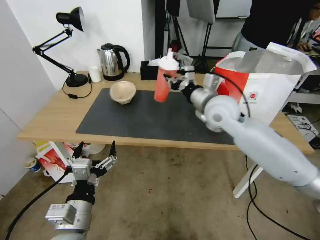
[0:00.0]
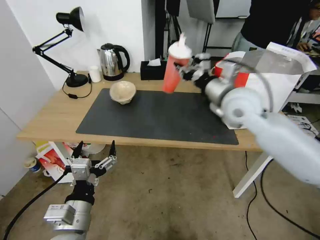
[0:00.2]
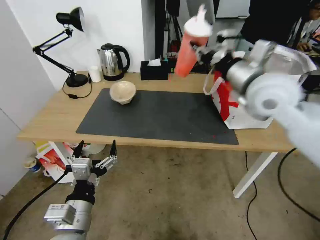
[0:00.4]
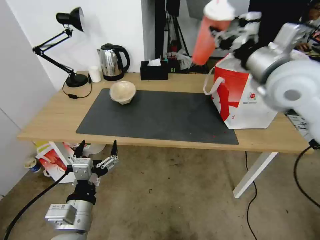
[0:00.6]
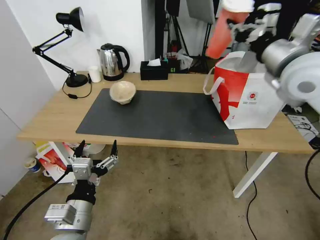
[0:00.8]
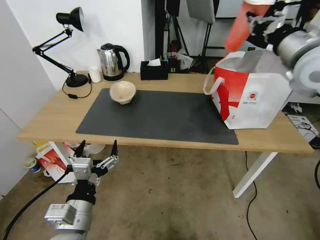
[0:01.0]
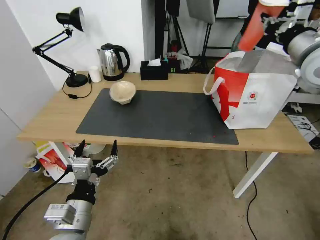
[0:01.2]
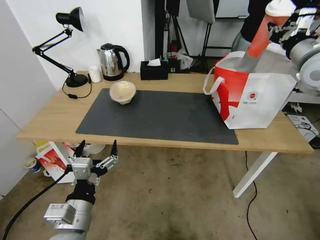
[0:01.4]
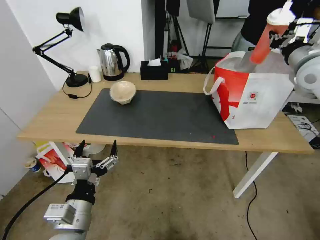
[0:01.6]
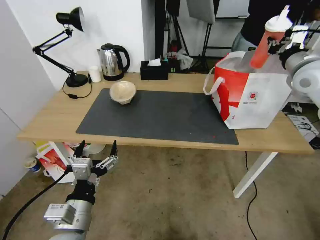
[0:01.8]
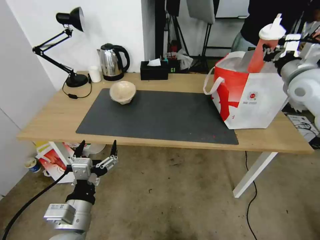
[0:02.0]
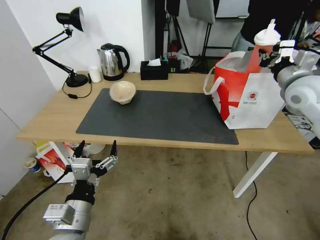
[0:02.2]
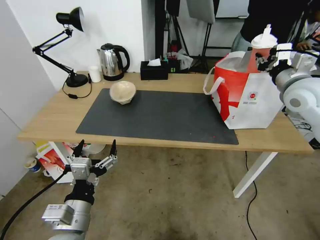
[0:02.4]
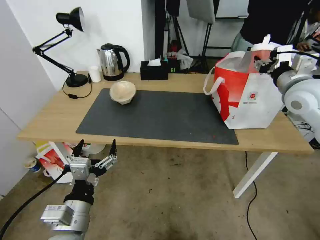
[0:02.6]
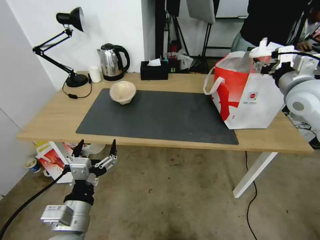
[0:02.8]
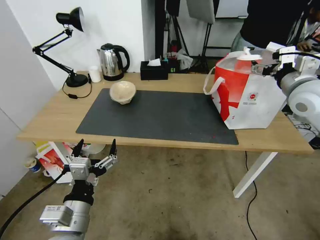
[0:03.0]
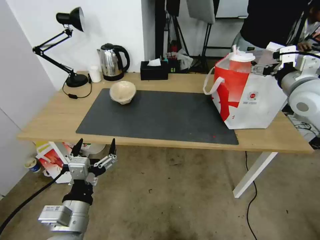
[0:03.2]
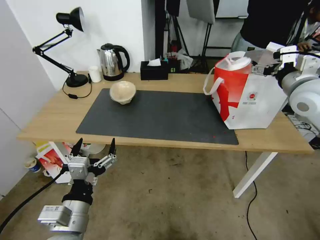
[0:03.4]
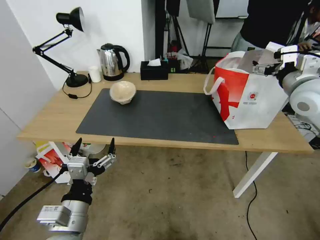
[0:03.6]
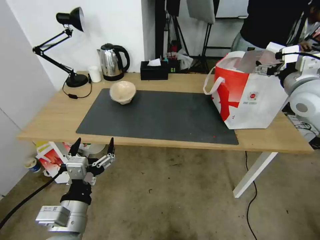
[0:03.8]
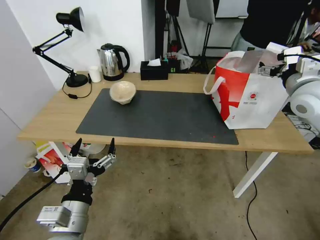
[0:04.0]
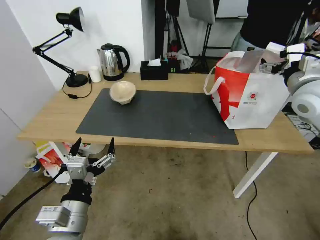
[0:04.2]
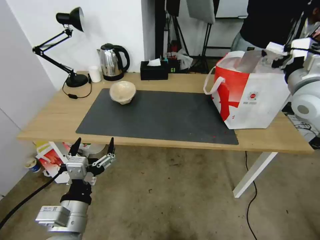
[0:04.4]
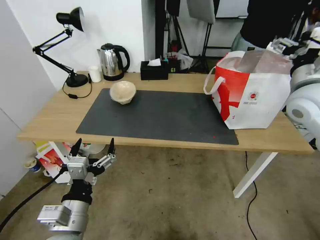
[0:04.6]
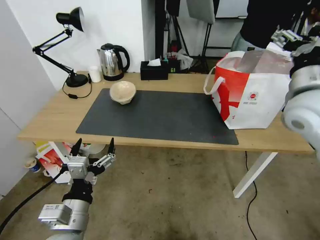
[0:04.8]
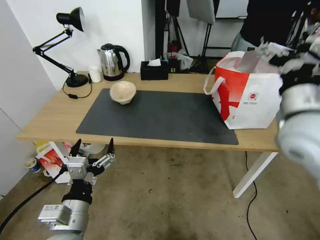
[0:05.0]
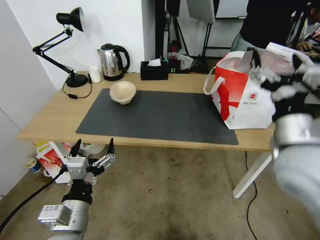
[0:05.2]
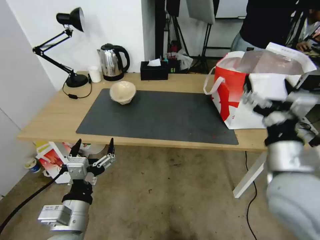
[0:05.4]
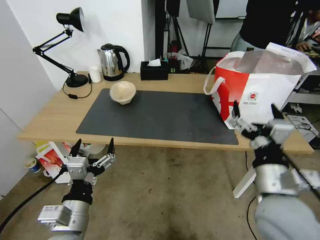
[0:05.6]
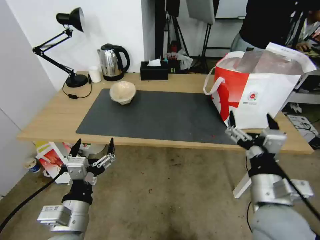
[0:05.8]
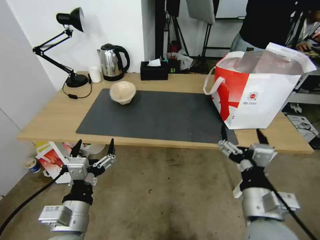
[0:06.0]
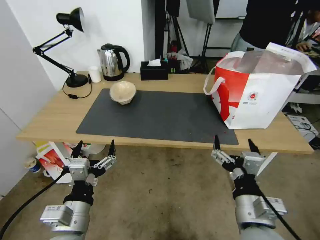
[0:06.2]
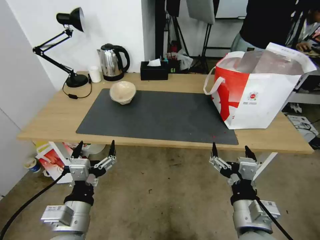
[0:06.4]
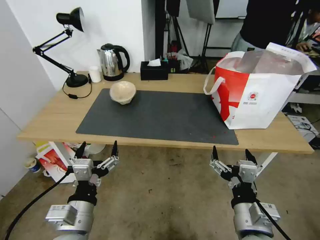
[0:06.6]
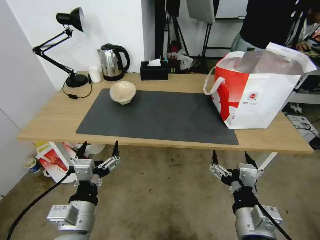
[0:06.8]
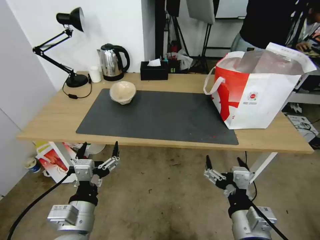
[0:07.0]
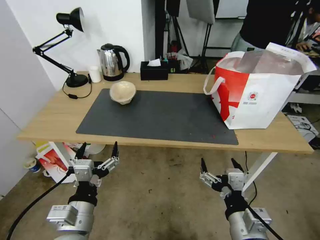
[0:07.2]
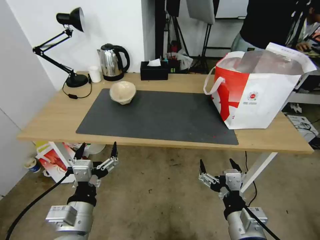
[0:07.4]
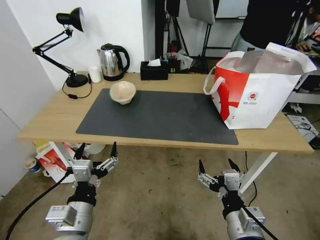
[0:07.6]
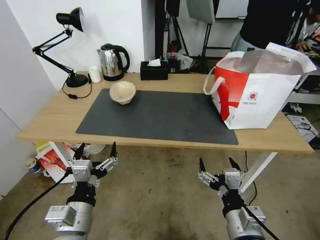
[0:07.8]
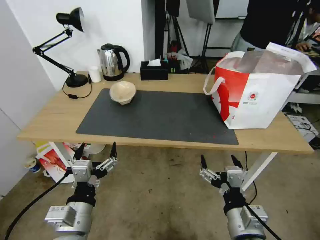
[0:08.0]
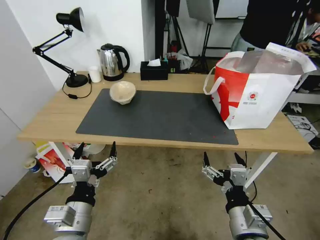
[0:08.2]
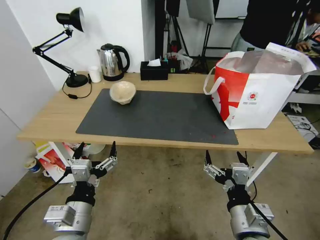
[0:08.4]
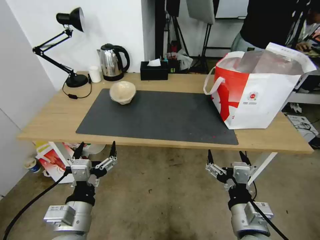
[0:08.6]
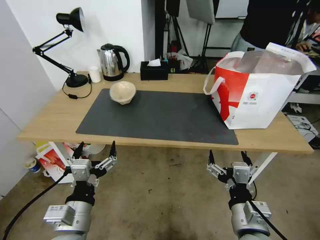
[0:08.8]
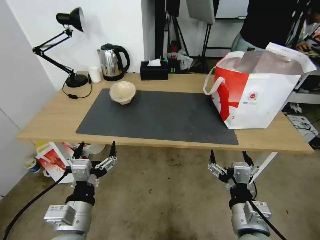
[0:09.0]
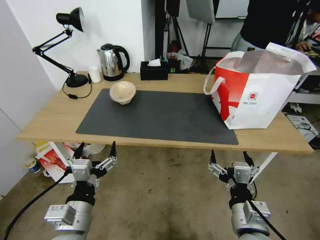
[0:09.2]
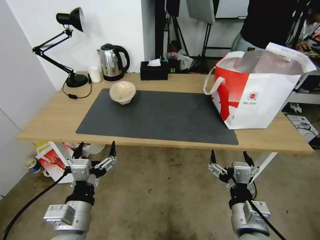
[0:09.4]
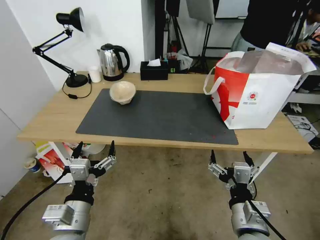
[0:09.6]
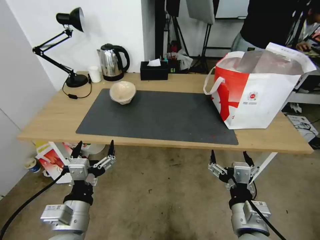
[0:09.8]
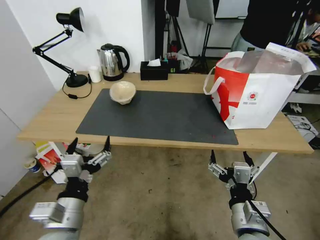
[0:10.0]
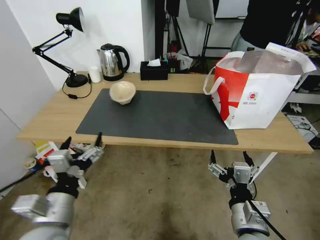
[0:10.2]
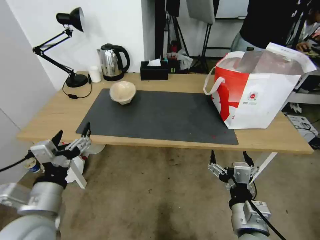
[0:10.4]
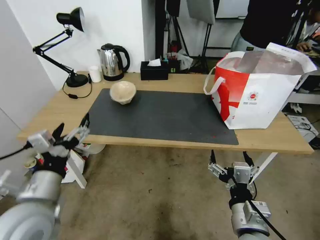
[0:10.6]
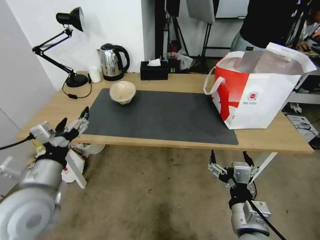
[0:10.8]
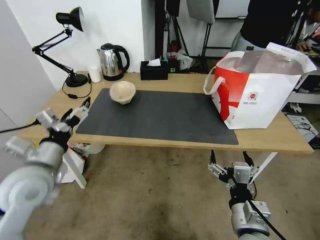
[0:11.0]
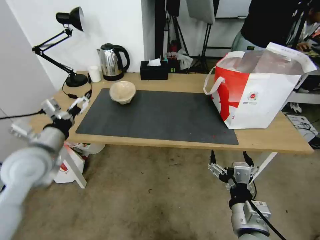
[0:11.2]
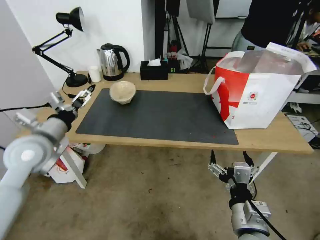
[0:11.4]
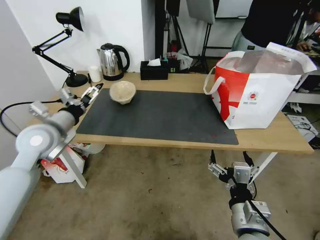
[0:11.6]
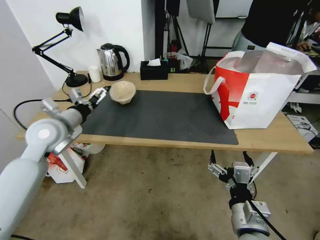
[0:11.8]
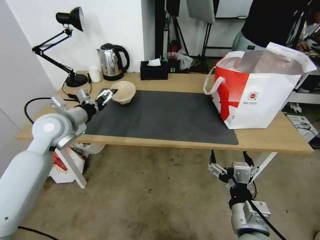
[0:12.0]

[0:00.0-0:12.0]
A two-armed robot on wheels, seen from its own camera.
Task of the whole recording: Pick up the trash from the table and place it into the takeout bag.
0:00.0 to 0:01.6: The right gripper travels to the right and upward by about 25 cm.
0:01.6 to 0:03.0: The right gripper is displaced backward by about 5 cm, and opens up.
0:03.0 to 0:04.4: The grippers make only small movements.
0:04.4 to 0:06.0: The right gripper shifts approximately 35 cm backward, to the left and downward.
0:06.0 to 0:07.6: The right gripper travels downward by some 5 cm.
0:07.6 to 0:09.0: There are only small adjustments of the grippers.
0:09.0 to 0:10.4: The left gripper is displaced to the left and upward by approximately 10 cm.
0:10.4 to 0:12.0: The left gripper heads forward, covering approximately 25 cm.

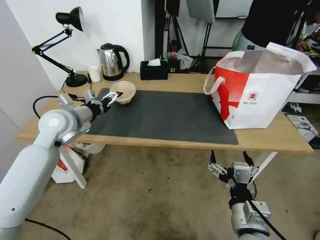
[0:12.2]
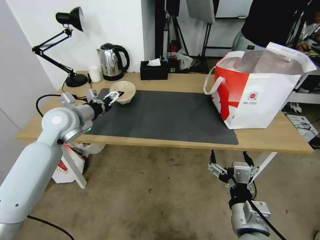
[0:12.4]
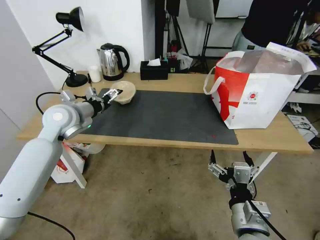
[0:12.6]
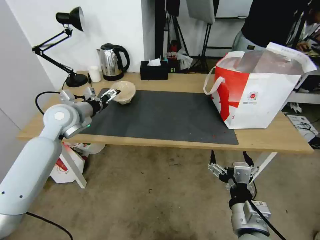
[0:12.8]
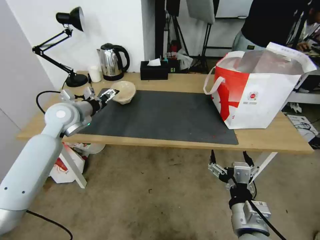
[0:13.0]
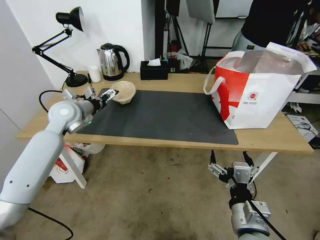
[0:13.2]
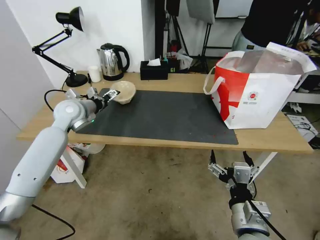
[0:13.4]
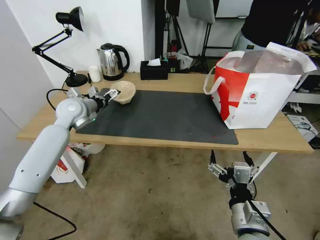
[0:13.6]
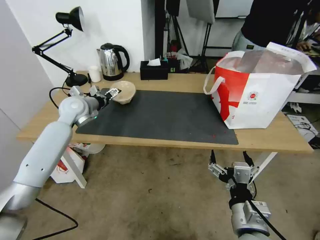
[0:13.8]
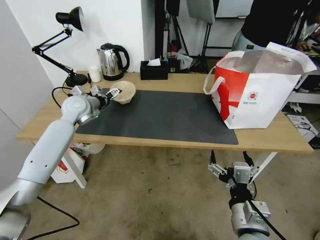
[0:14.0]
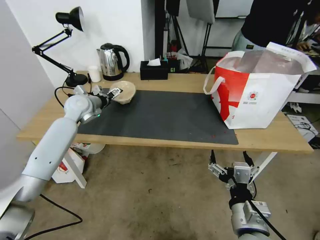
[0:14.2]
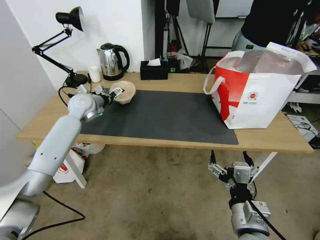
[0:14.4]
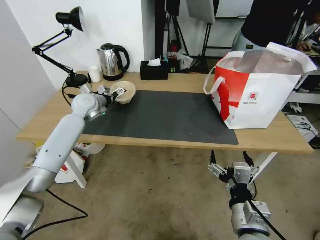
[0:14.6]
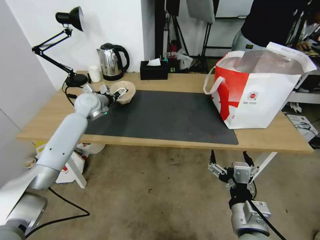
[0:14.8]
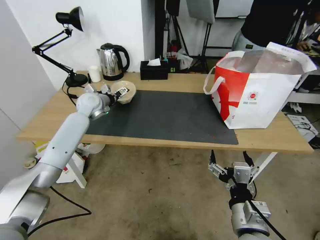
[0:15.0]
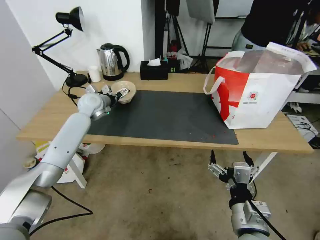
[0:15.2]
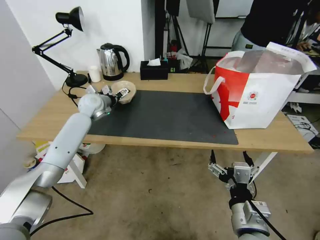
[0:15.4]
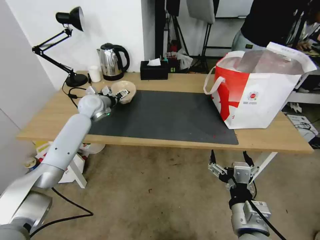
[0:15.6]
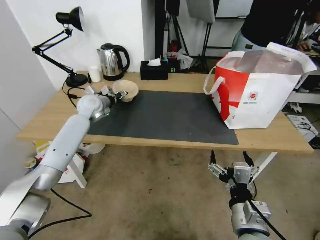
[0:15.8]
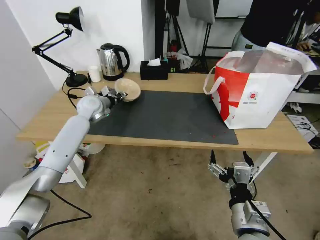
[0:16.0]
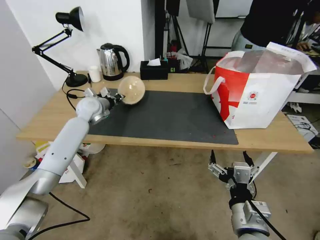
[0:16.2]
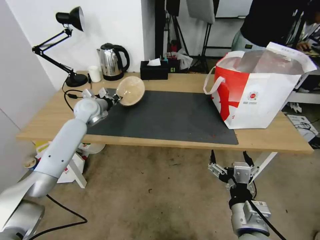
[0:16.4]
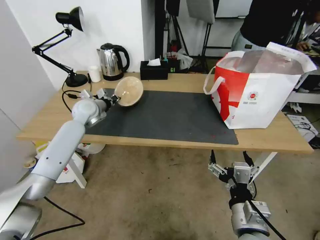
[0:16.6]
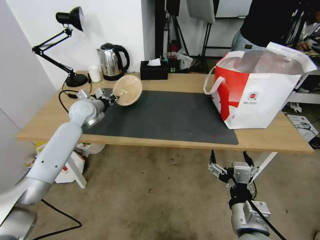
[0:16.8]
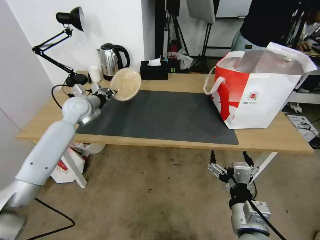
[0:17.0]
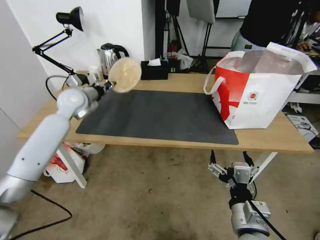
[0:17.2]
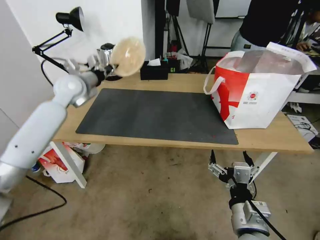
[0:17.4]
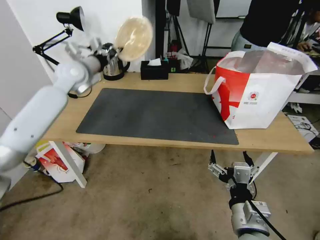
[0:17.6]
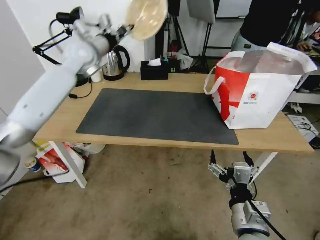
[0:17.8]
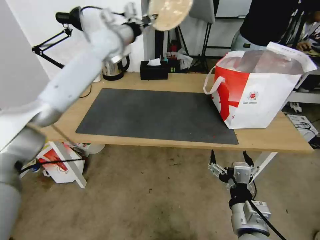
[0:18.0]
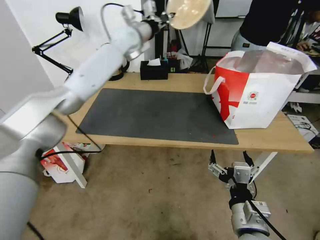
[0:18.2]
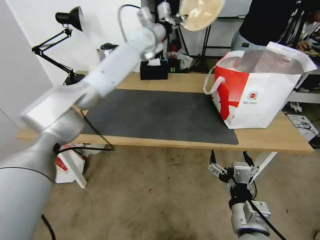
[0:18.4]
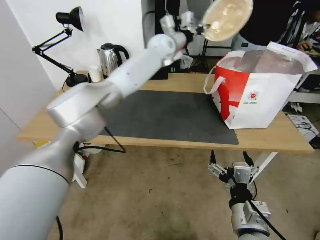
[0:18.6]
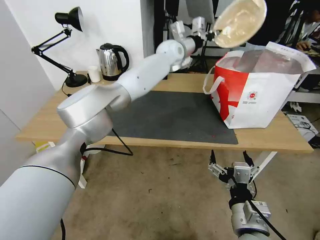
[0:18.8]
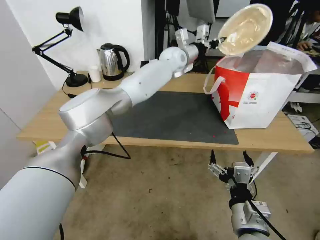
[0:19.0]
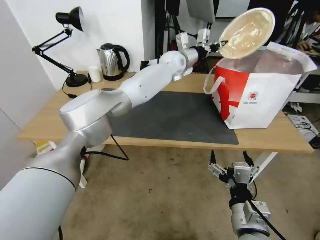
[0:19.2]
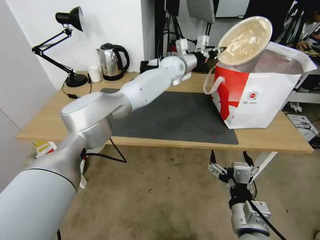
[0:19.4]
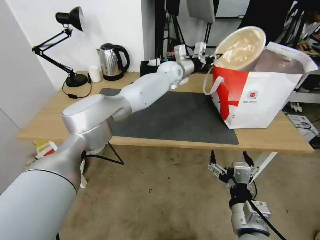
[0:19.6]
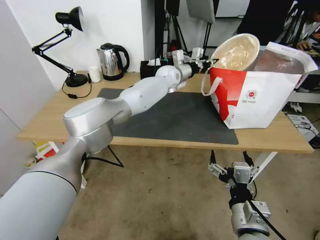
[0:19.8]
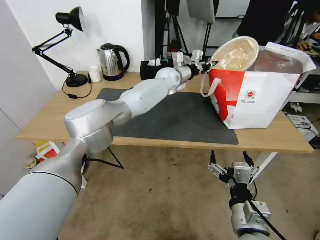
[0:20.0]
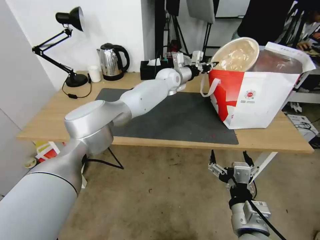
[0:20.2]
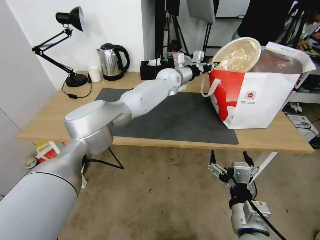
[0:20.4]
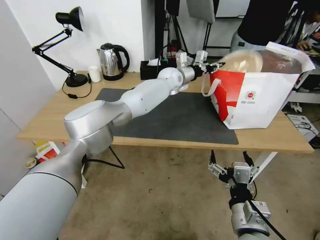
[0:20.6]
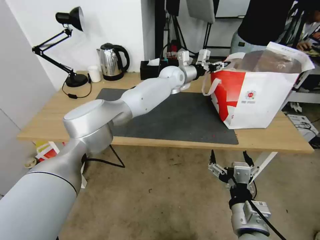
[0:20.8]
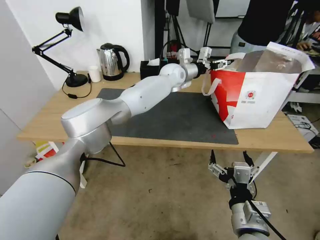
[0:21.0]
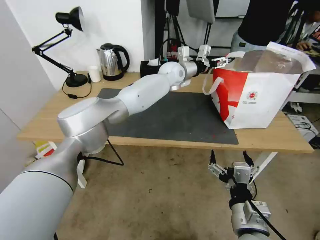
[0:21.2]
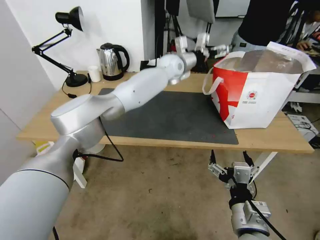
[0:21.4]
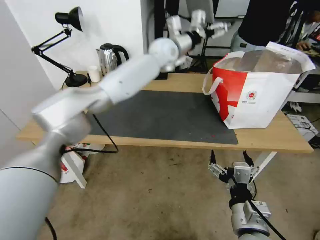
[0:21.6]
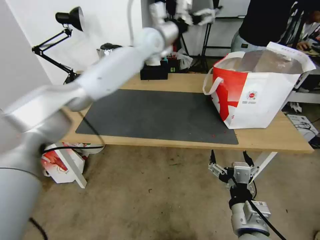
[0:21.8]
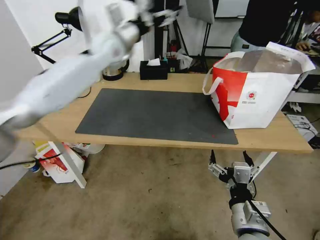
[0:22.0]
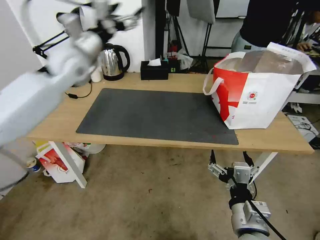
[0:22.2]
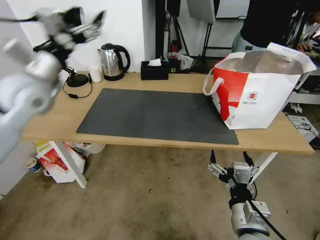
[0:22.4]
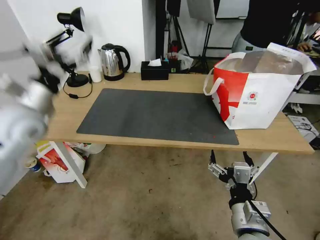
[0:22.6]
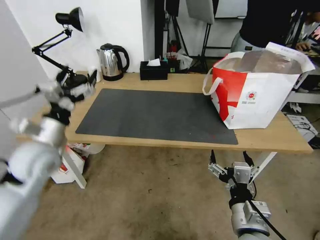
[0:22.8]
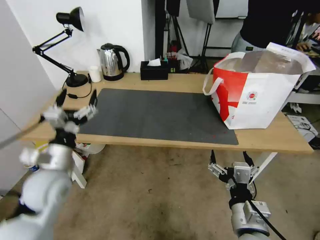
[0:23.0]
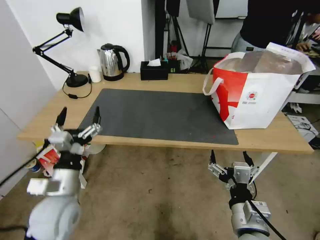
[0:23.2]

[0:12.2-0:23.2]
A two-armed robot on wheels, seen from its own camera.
Task of the whole recording: Pick up the trash from the table and place it into the takeout bag.
0:12.2 to 0:13.8: The left gripper travels forward by some 10 cm.
0:13.8 to 0:15.4: The left gripper travels forward by roughly 5 cm.
0:15.4 to 0:17.0: The left gripper shifts about 5 cm backward, and closes up.
0:17.0 to 0:18.4: The left gripper moves to the right, upward and forward, about 35 cm.
0:18.4 to 0:20.0: The left gripper moves downward and to the right, some 15 cm.
0:20.0 to 0:21.6: The left gripper goes approximately 15 cm upward, and opens its fingers.
0:21.6 to 0:23.2: The left gripper shifts about 50 cm backward, to the left and downward.
